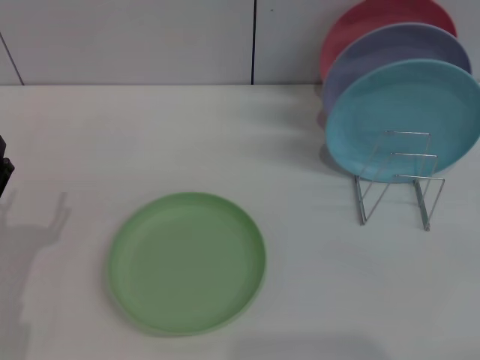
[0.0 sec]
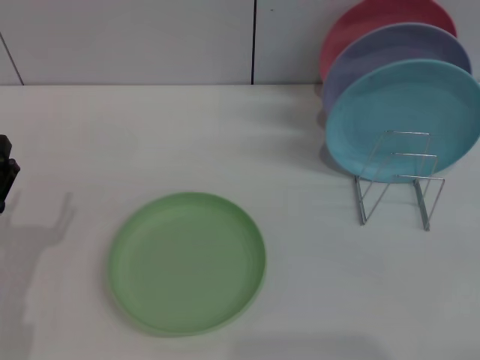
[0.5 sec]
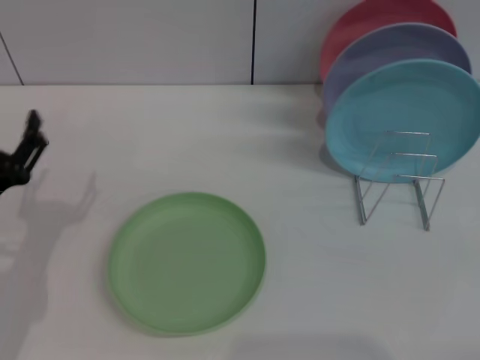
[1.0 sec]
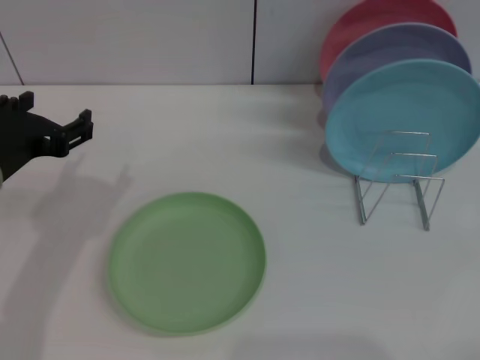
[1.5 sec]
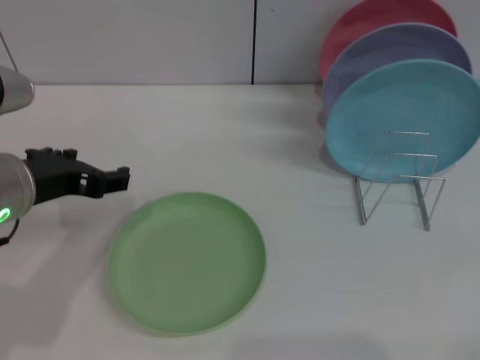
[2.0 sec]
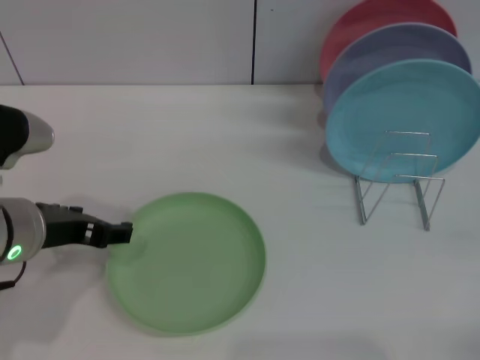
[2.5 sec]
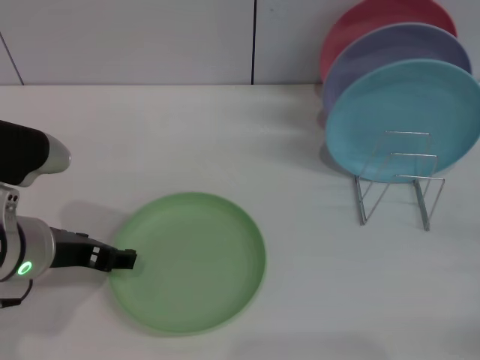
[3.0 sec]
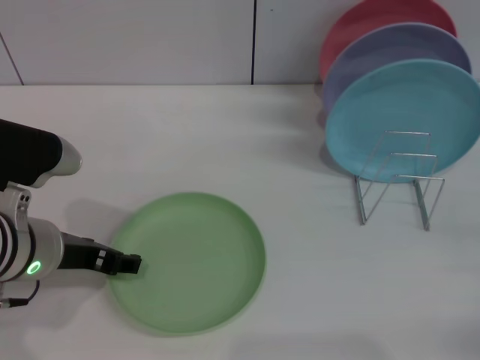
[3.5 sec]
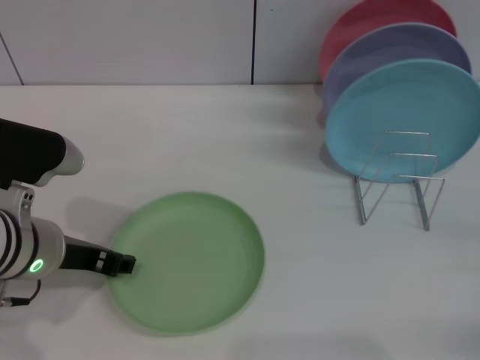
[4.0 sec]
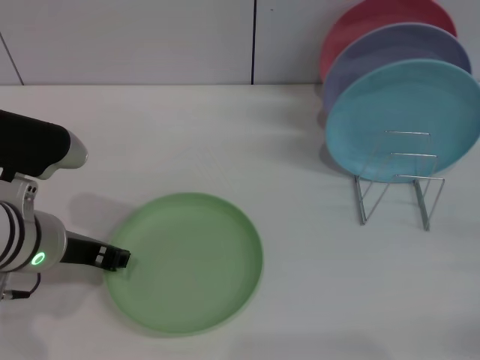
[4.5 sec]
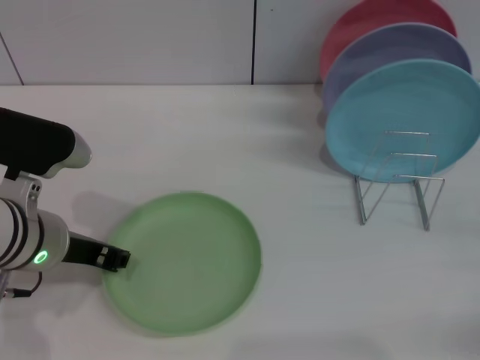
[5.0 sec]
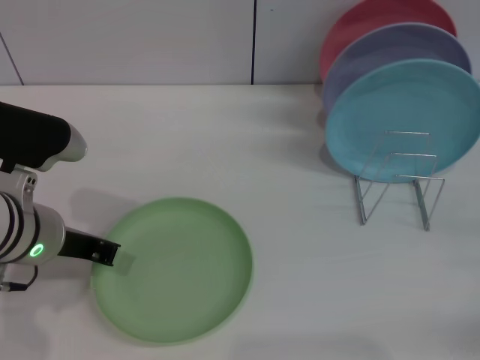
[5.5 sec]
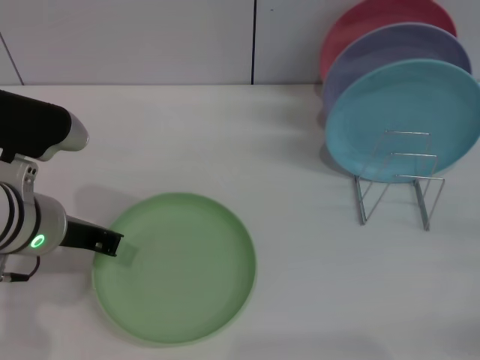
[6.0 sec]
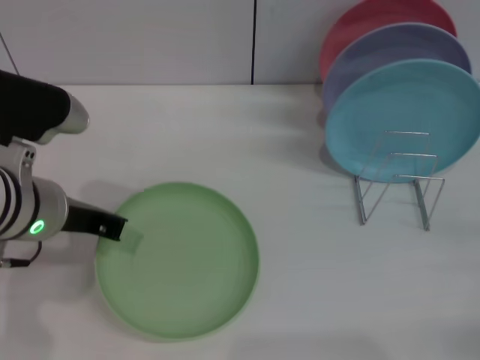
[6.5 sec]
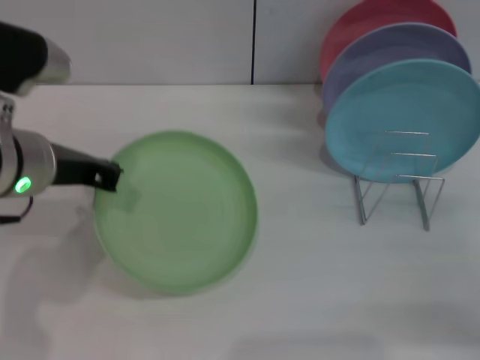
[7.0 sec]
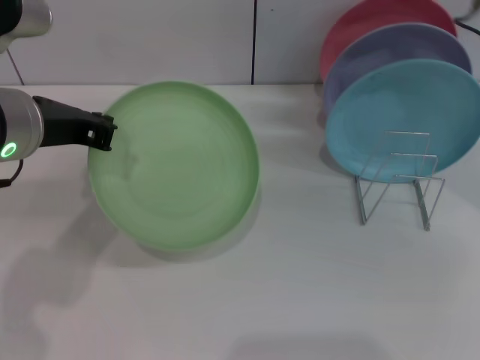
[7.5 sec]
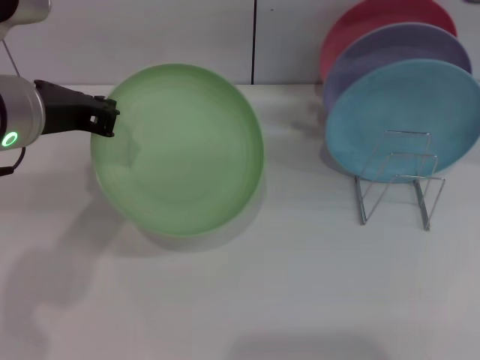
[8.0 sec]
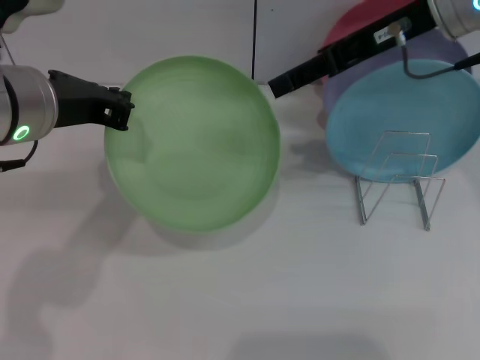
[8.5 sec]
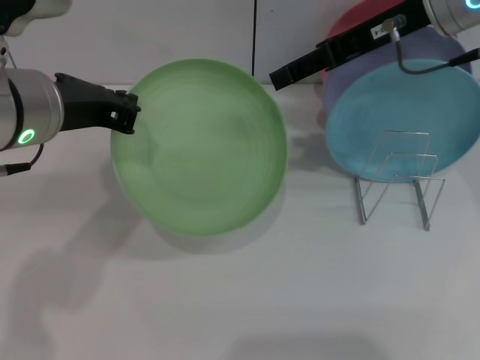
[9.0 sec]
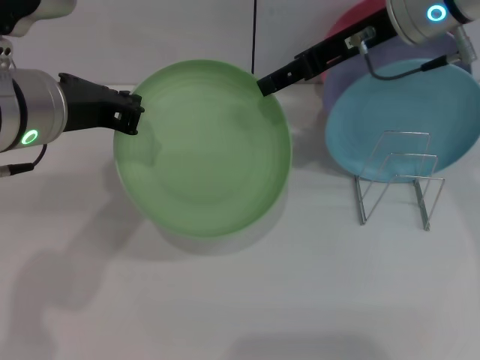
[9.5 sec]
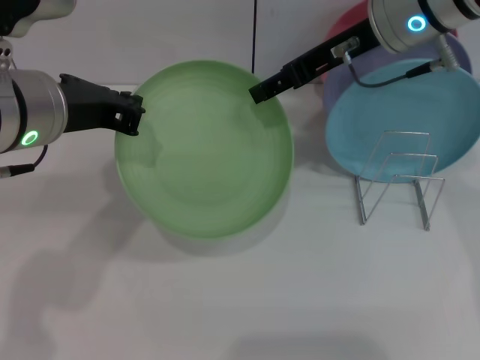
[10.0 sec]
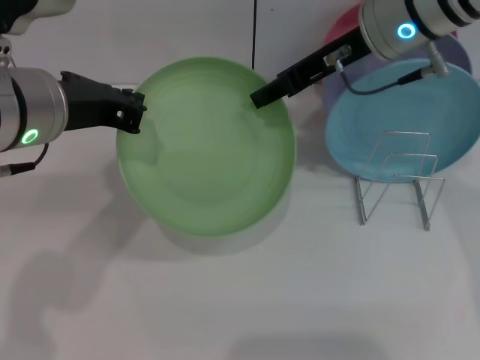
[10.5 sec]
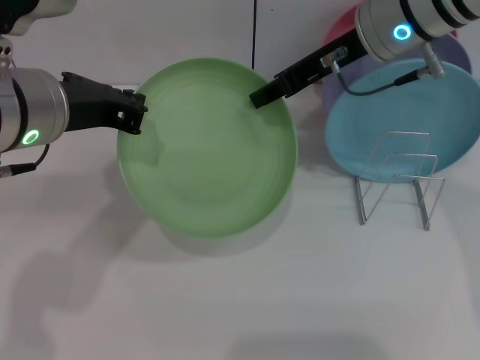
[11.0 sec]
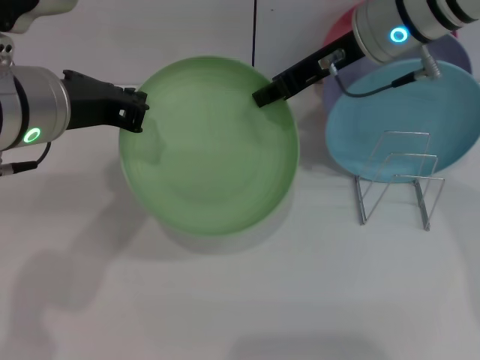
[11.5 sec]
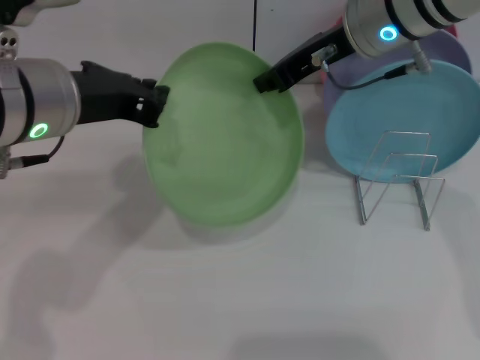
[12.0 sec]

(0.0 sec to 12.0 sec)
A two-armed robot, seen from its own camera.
Task of the whole recording: Grip the plate with one hand, pass it to the other, then set it on the shelf.
Step, 0.0 sec - 6.5 sec: Pick up the plate with the left gripper.
0.0 sec - 2.0 sec: The left gripper heads upward, to the right and forward, covering roughly 15 cm.
2.0 sec - 4.0 sec: The left gripper heads downward, covering roughly 5 cm.
4.0 sec - 6.0 sec: The left gripper closes.
6.0 sec - 8.0 sec: The right gripper travels upward, forward and to the left by approximately 35 cm. Meanwhile the left gripper shifts approximately 10 cm upward.
8.0 sec - 10.0 sec: The right gripper travels to the left by approximately 10 cm.
10.0 sec - 12.0 sec: The right gripper closes its fingers.

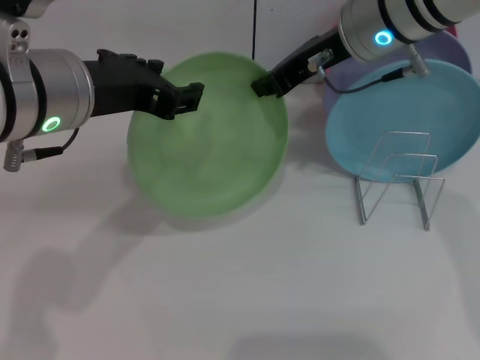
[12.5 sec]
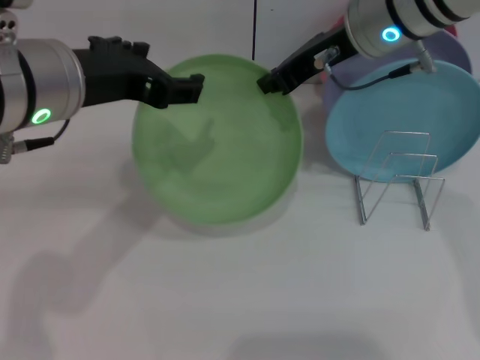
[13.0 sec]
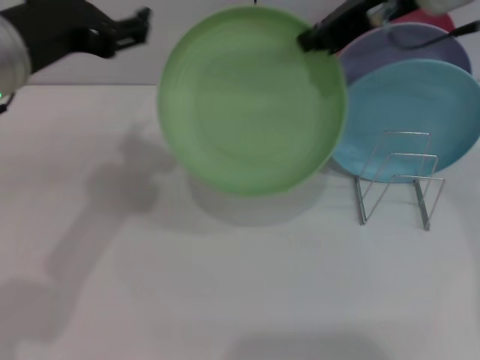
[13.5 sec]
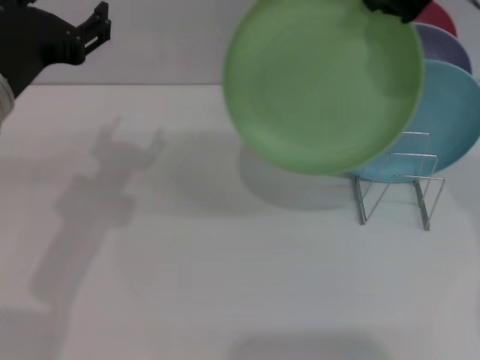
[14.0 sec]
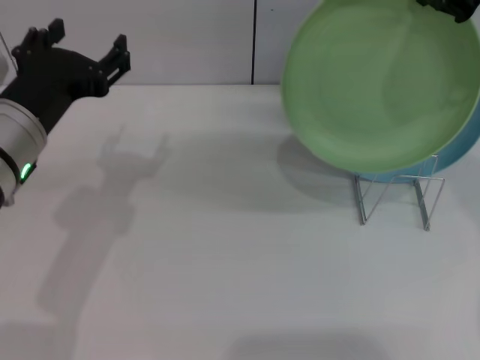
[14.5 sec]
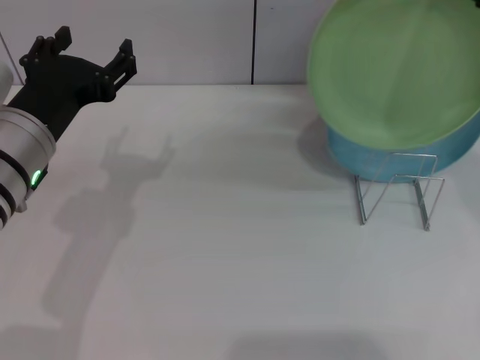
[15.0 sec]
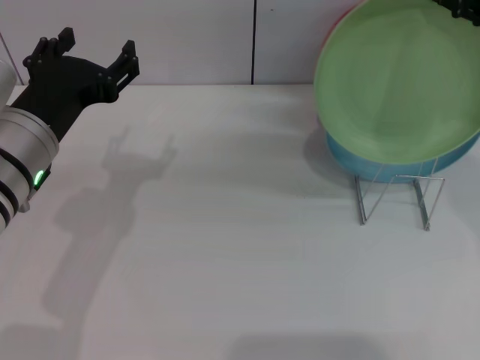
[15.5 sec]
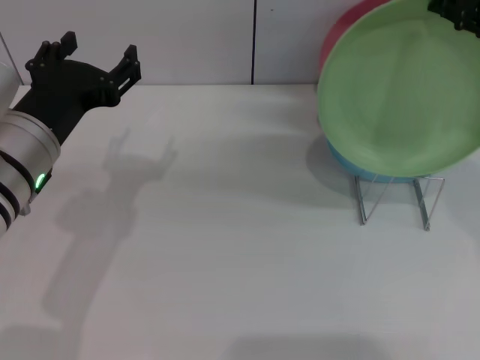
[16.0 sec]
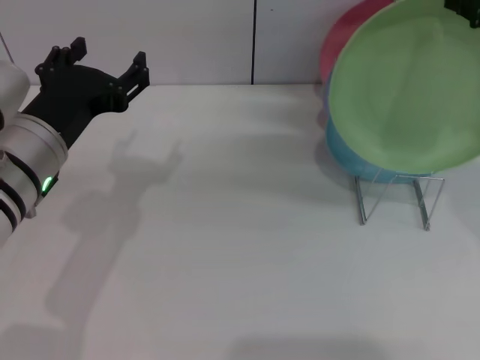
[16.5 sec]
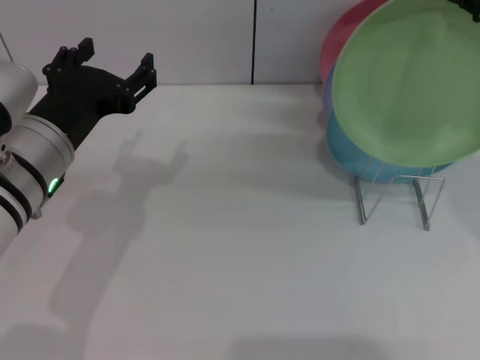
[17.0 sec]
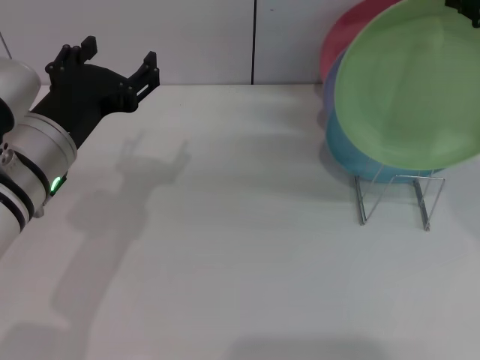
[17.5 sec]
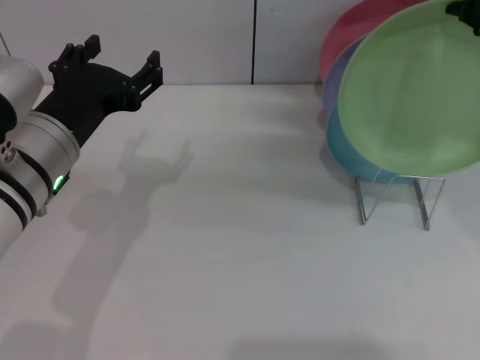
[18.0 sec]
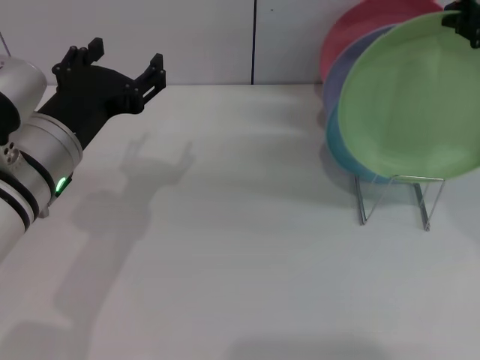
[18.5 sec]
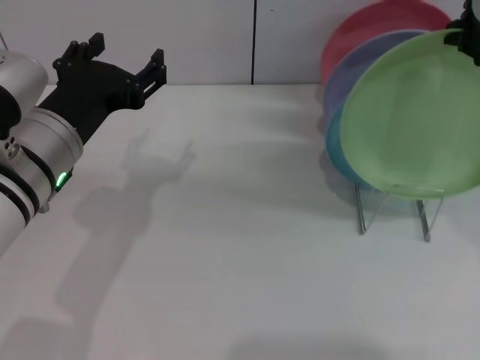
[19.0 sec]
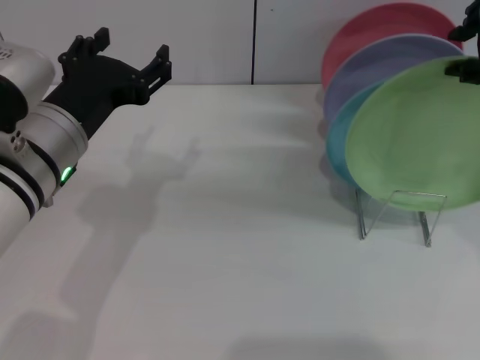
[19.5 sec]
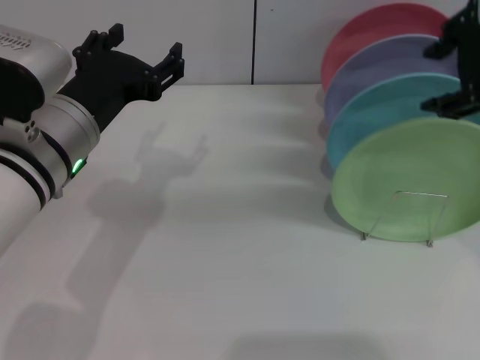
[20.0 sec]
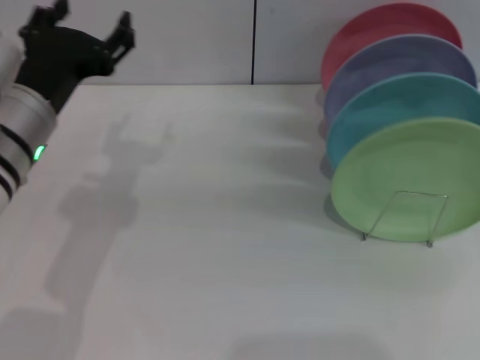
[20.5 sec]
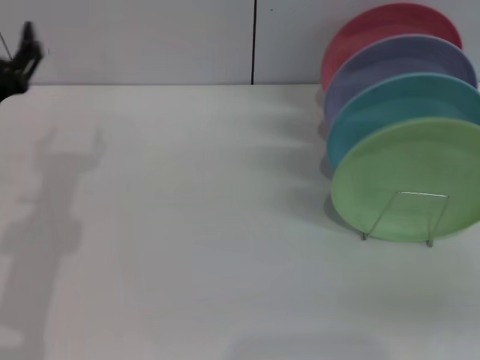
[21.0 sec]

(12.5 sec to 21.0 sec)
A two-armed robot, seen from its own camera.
Task of the whole recording: Grip the plate with one hand, pass it to the other, then set it on the shelf.
Step, 13.5 sec - 20.0 sec: Place the plate on the shelf with the right gripper.
12.5 sec - 14.5 sec: The left gripper moves downward, approximately 10 cm, and opens up; the right gripper moves upward, to the right and backward, approximately 15 cm.
14.5 sec - 16.5 sec: The grippers move only a little.
16.5 sec - 19.0 sec: The grippers make only small movements.
19.0 sec - 21.0 sec: The right gripper moves to the right, downward and backward, about 25 cm, and opens its fingers. The left gripper travels to the left by about 10 cm.
